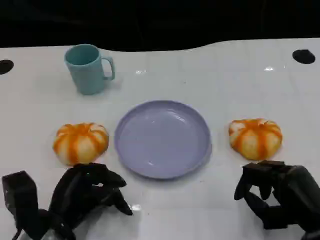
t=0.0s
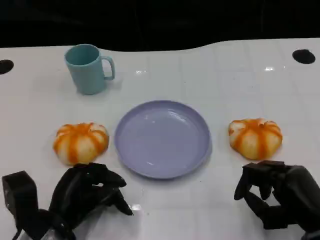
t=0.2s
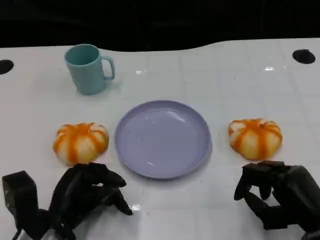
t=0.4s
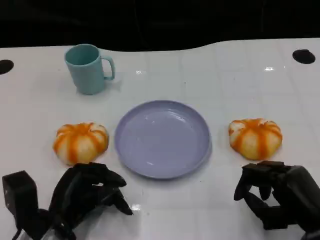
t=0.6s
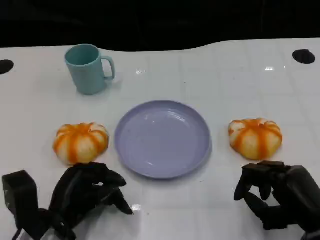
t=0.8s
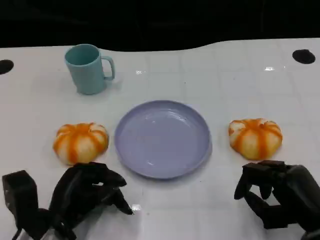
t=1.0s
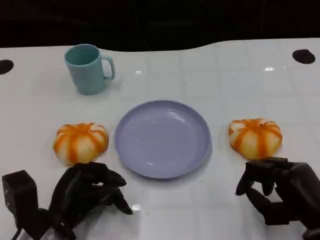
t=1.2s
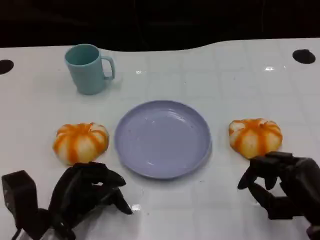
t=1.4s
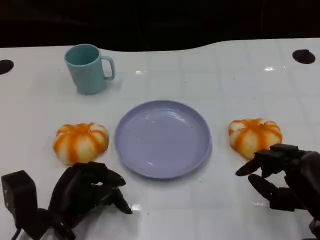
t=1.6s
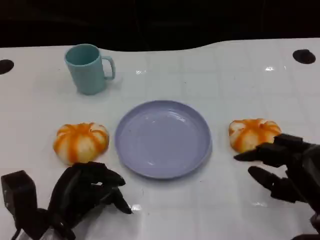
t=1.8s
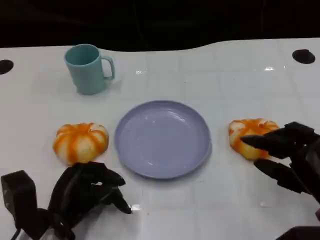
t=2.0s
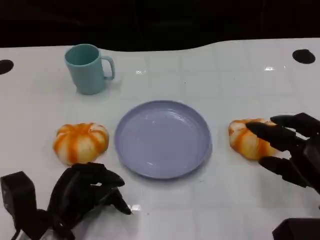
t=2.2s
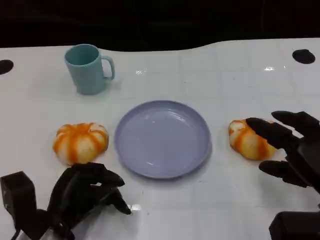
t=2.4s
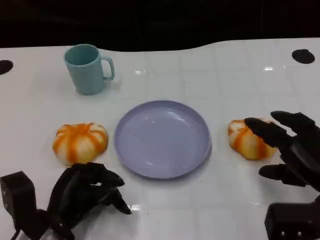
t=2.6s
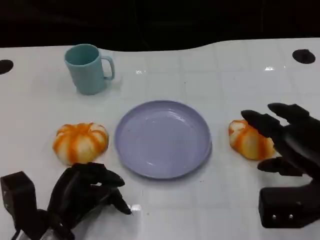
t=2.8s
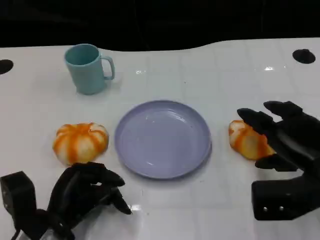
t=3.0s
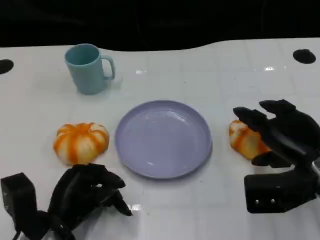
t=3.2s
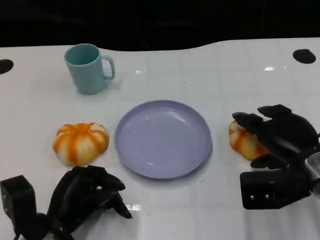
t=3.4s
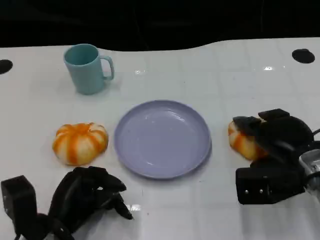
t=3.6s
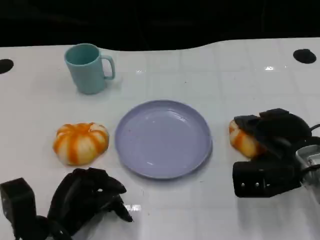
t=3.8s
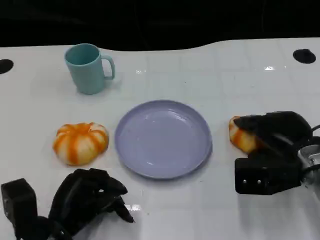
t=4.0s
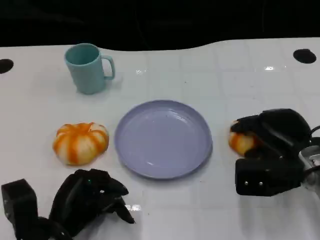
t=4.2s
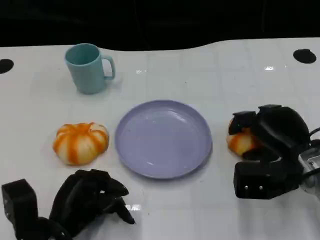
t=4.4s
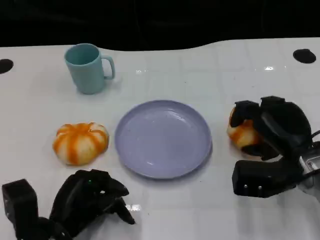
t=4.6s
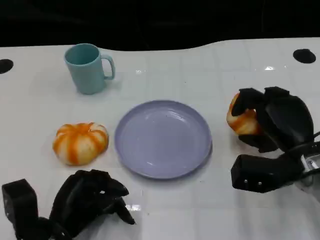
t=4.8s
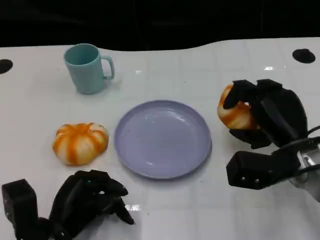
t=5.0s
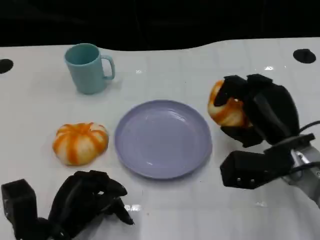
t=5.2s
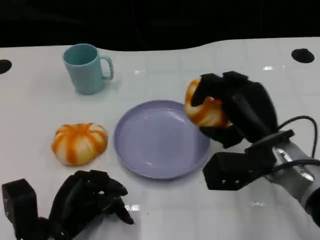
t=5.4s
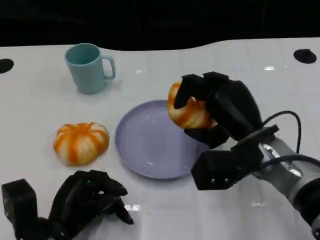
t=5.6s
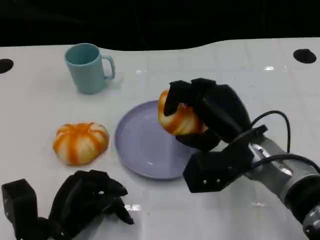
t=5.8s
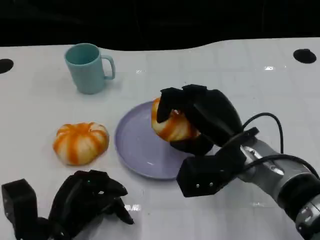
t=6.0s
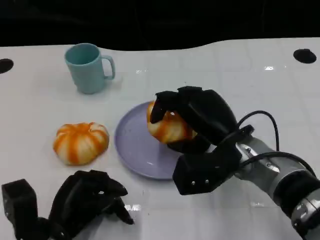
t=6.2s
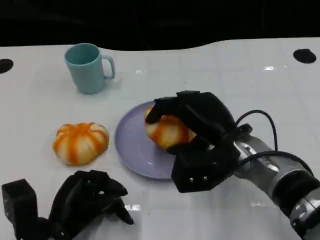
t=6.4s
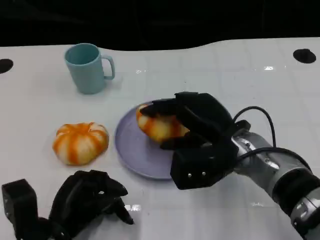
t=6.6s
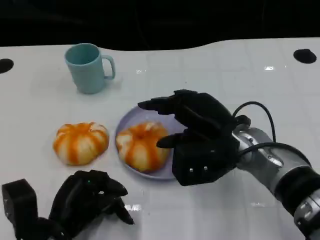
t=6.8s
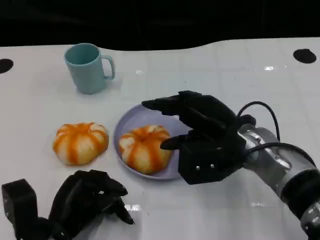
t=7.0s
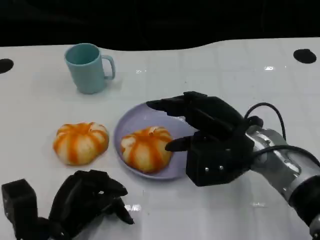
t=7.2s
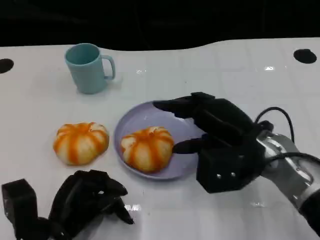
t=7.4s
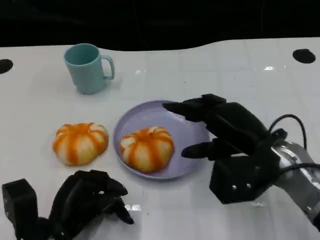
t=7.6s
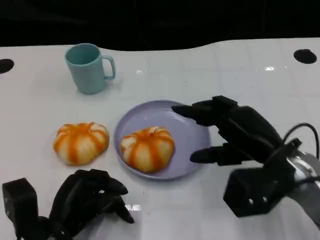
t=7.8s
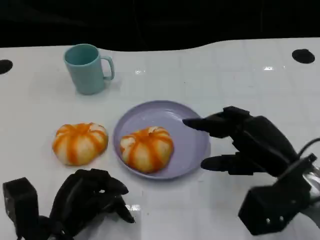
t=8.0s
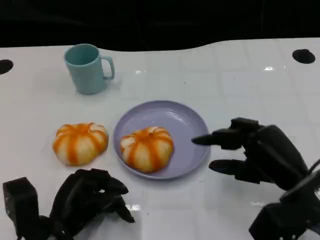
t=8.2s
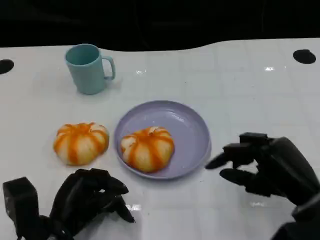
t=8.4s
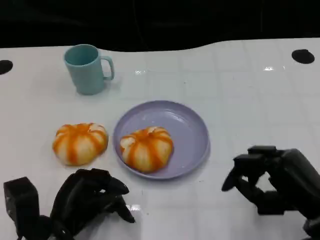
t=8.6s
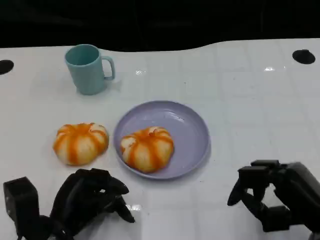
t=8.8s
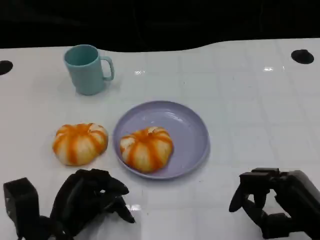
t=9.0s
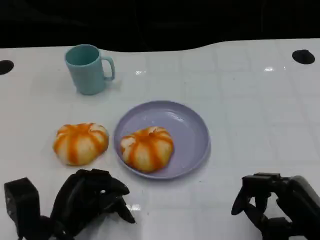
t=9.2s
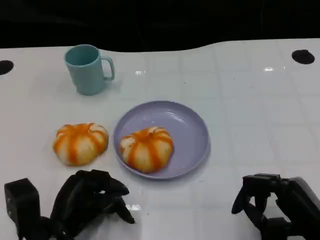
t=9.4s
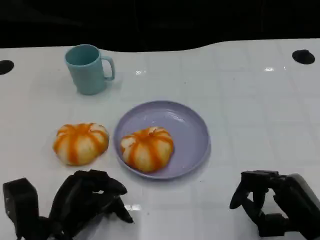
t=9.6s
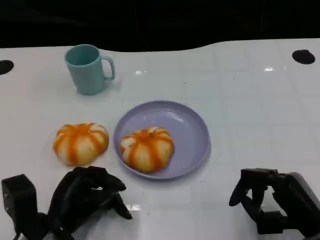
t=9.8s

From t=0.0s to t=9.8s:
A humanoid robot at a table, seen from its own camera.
Task of the whole recording: Grasp the bread from the table and place it into the plate.
From t=0.0s to t=1.4s: Both hands stay about where they are.
From t=1.4s to t=2.8s: The right hand moves upward, some 5 cm.
From t=2.8s to t=4.2s: The right hand ends up some 5 cm from where it was.
From t=4.2s to t=5.6s: The right hand shifts some 10 cm to the left.
From t=7.0s to t=8.4s: The right hand moves to the right and backward, about 15 cm.
From t=8.4s to t=9.8s: The hands make only small movements.

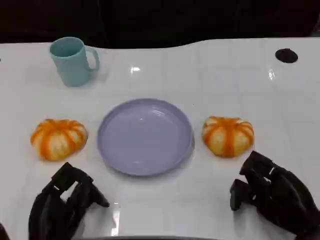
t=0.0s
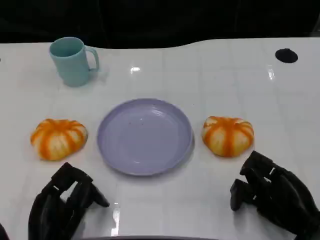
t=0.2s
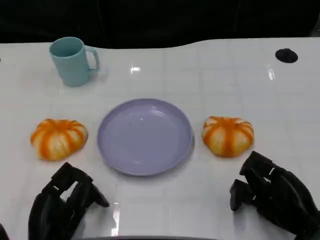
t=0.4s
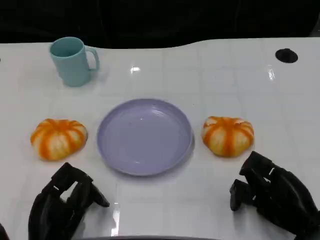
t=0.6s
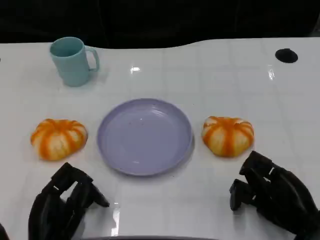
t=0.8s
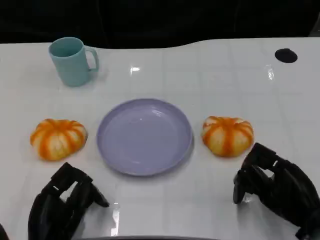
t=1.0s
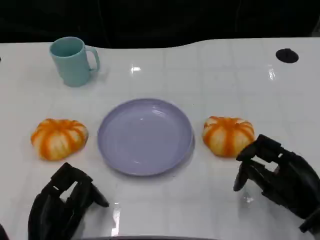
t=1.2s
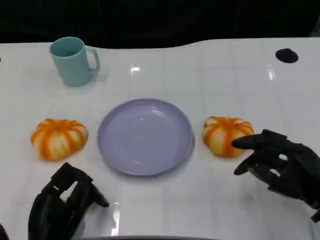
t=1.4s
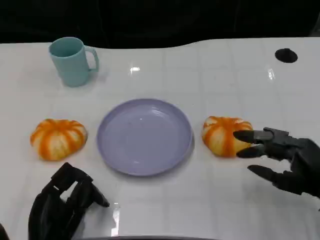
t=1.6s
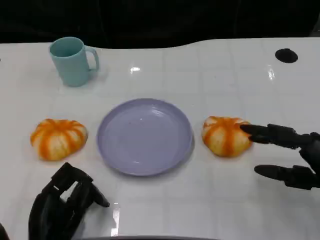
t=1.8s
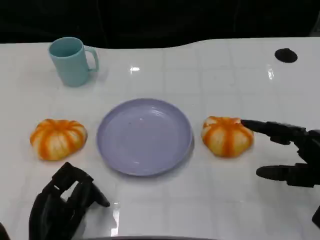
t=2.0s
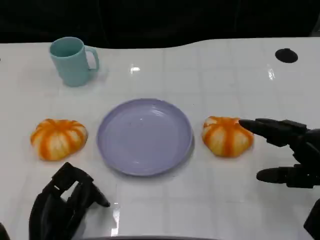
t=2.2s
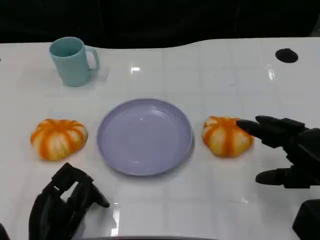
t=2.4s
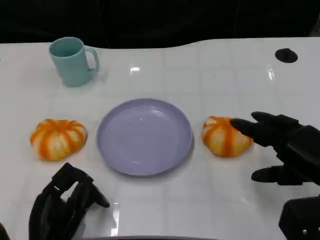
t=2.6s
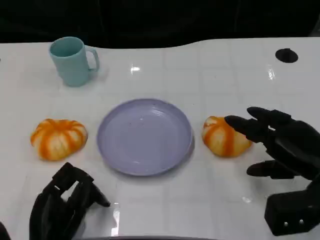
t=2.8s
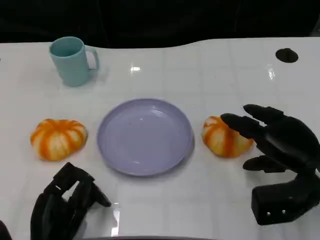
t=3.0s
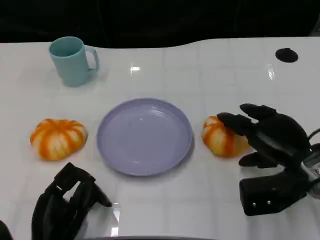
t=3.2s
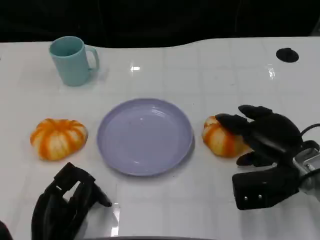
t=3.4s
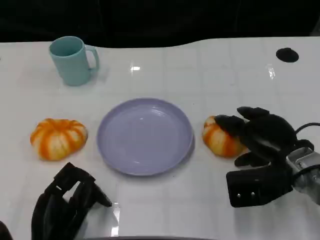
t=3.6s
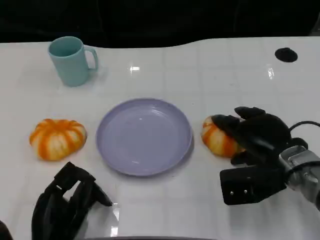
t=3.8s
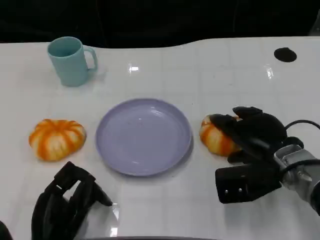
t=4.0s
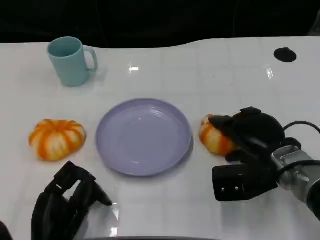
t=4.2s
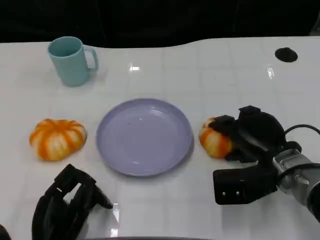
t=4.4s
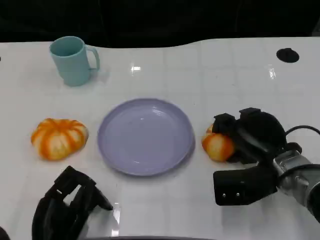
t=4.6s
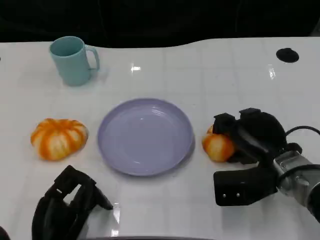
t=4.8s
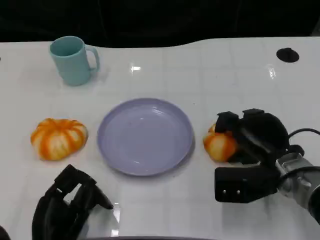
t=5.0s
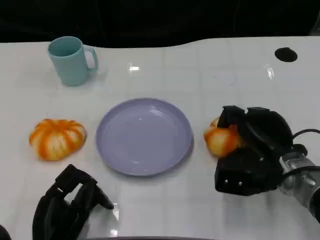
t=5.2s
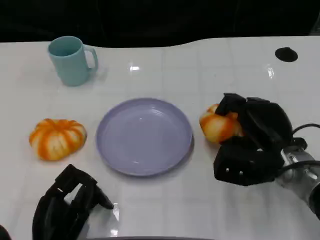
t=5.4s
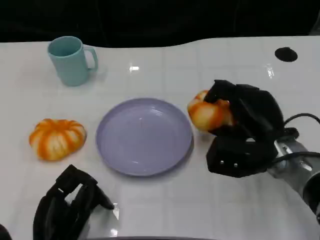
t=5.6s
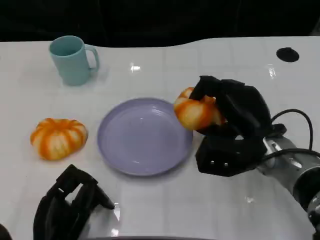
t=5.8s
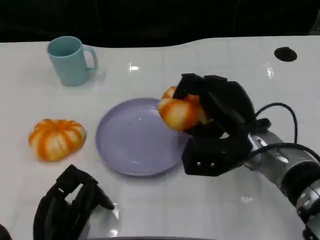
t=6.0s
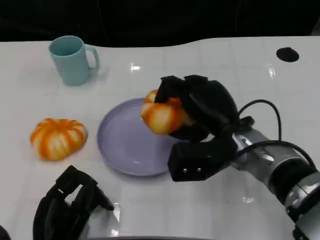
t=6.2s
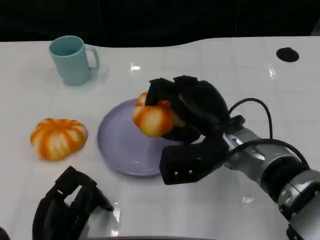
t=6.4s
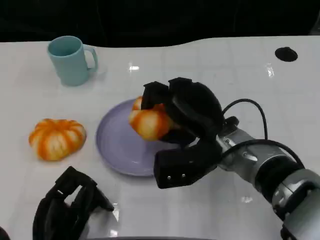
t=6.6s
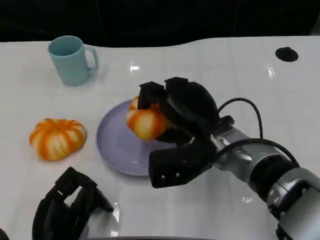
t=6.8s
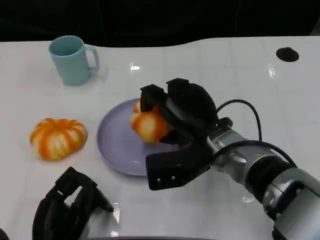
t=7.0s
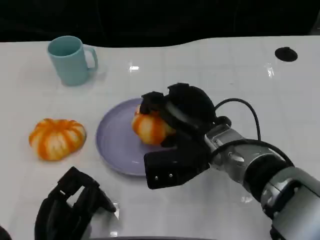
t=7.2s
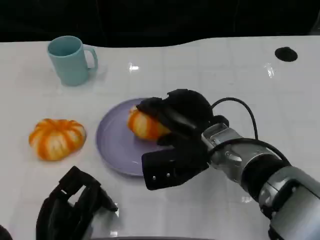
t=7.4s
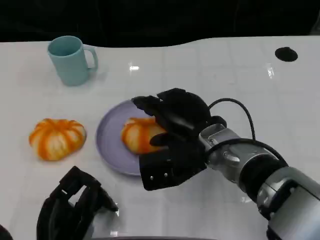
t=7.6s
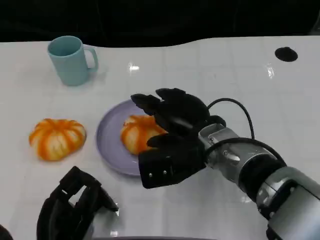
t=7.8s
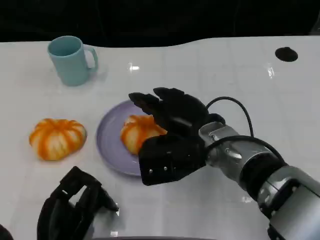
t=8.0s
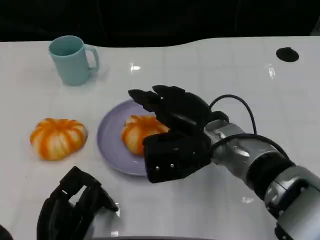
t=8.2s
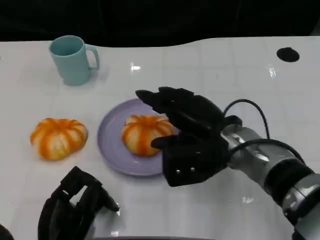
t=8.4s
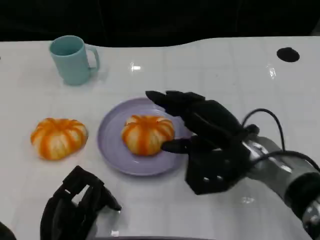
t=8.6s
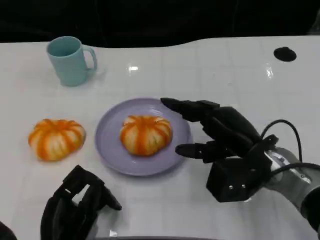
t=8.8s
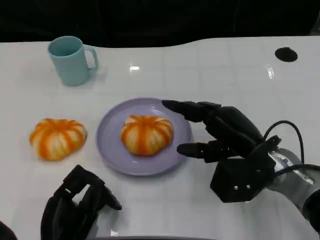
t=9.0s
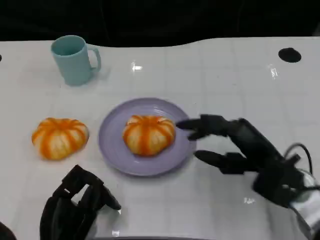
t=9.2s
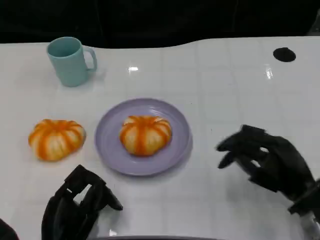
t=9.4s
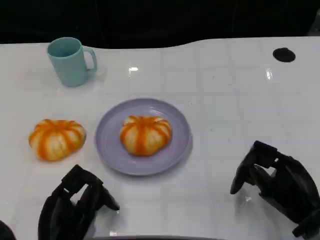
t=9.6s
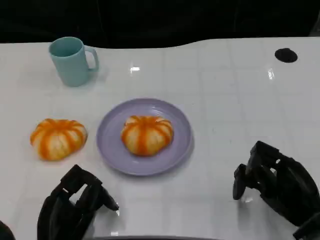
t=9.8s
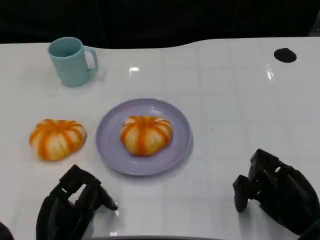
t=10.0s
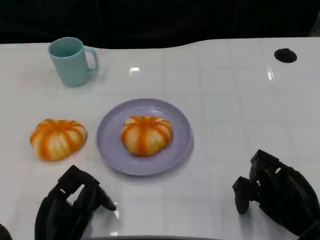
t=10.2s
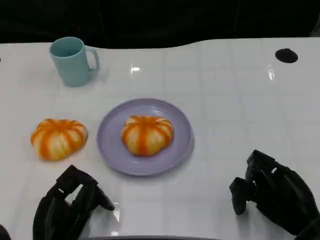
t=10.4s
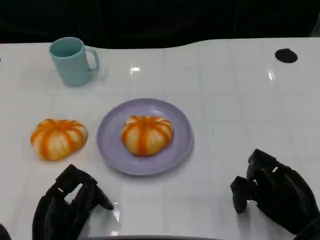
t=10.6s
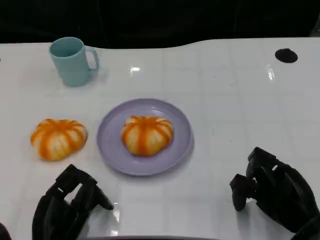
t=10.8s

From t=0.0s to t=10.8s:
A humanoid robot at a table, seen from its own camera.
Task of the whole recording: Grasp the bread from the table and place it into the plate.
From t=0.0s to t=1.6s: The right hand travels upward by about 5 cm.
From t=1.6s to t=3.0s: The right hand is displaced forward by roughly 5 cm.
From t=3.0s to t=4.6s: The right hand ends up approximately 5 cm from where it was.
From t=4.6s to t=6.2s: The right hand goes about 10 cm to the left.
From t=7.8s to t=9.2s: The right hand travels to the right by some 10 cm.
From t=9.2s to t=10.8s: The right hand is displaced backward by some 5 cm.

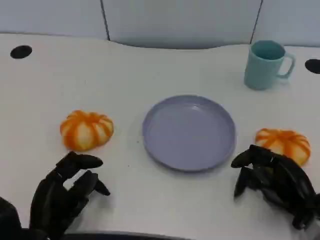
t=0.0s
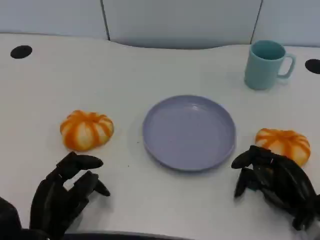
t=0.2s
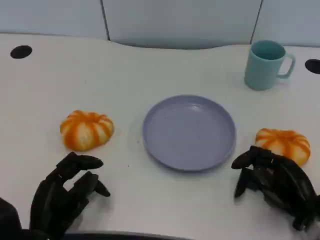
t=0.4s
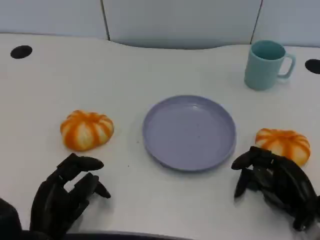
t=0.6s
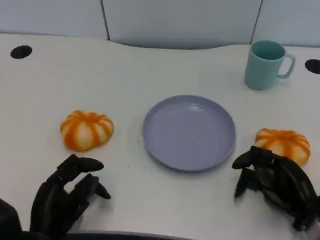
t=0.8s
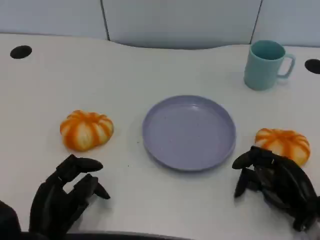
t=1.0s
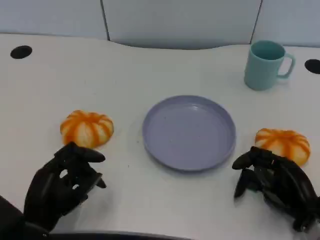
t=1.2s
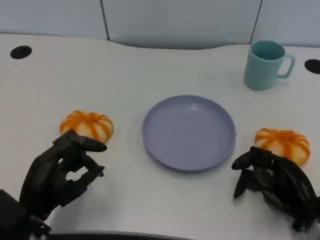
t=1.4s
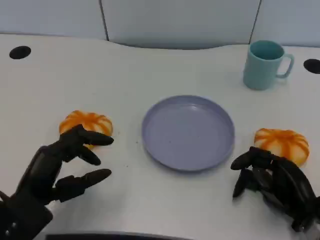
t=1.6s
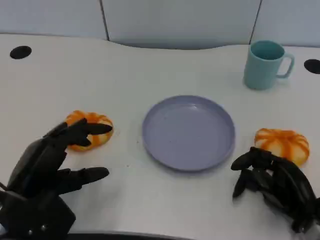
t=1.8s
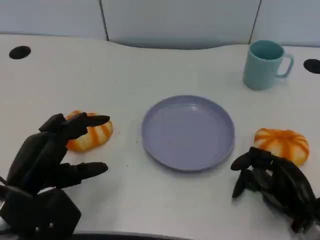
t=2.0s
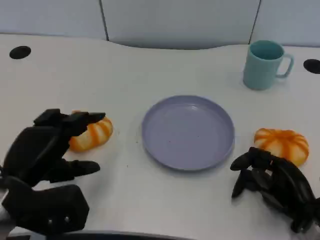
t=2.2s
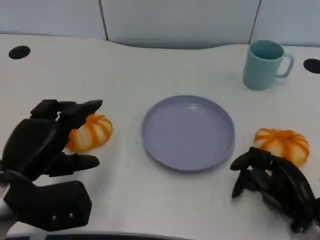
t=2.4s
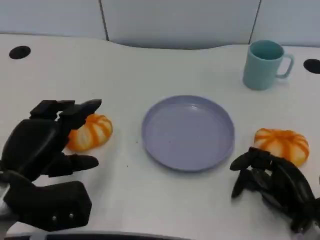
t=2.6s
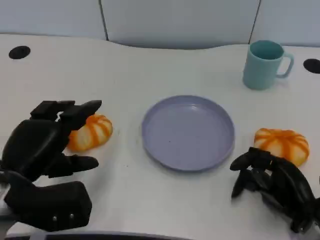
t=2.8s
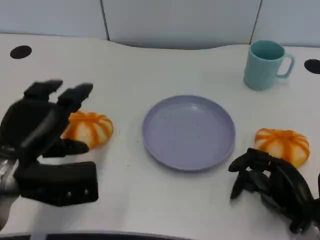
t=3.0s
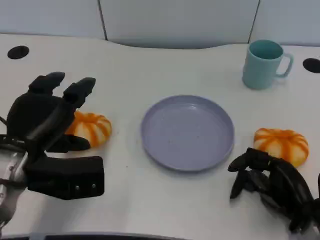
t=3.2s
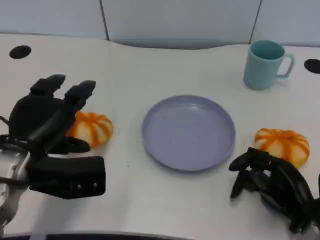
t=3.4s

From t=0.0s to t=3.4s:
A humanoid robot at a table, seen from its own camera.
Task of the whole recording: Grasp the bread from the table and place it into the plate.
From t=0.0s to t=1.6s: The left hand is displaced upward by approximately 5 cm.
From t=1.6s to t=3.4s: The left hand moves forward and upward, approximately 10 cm.
